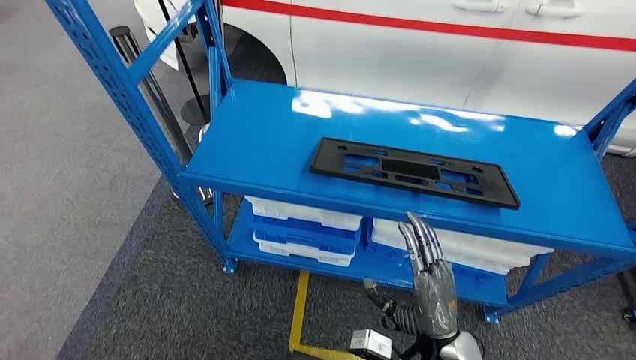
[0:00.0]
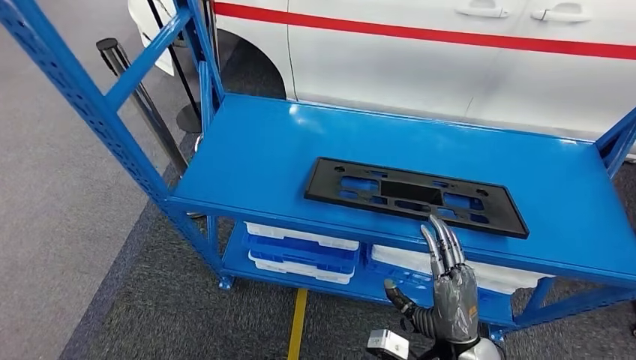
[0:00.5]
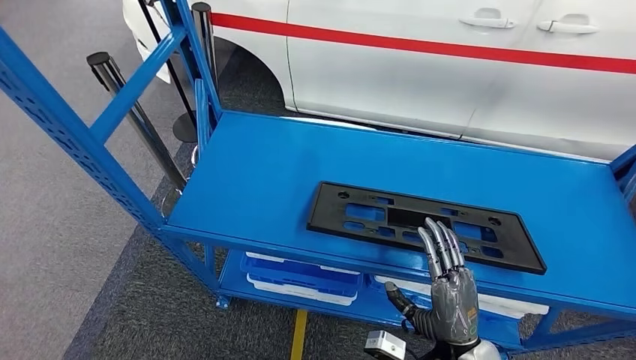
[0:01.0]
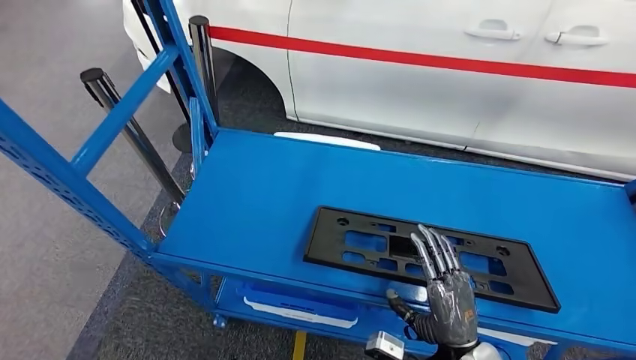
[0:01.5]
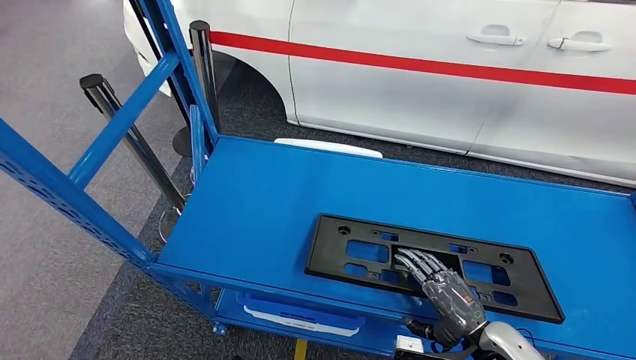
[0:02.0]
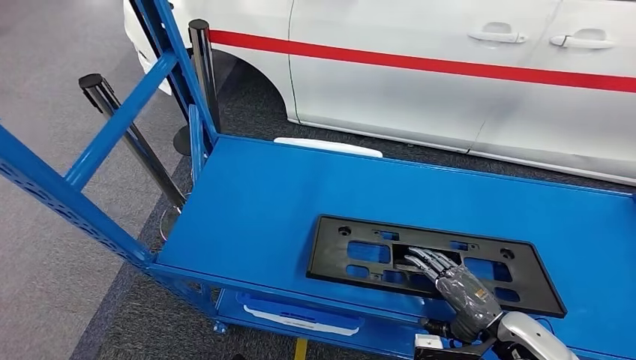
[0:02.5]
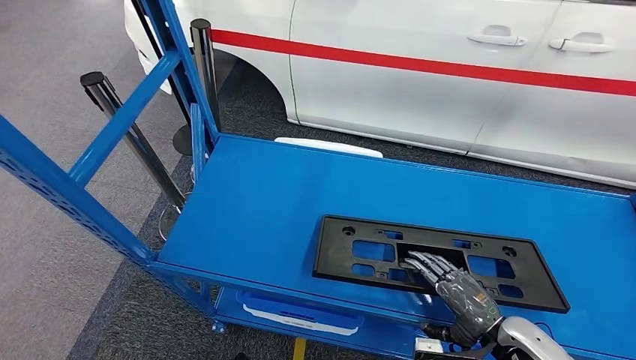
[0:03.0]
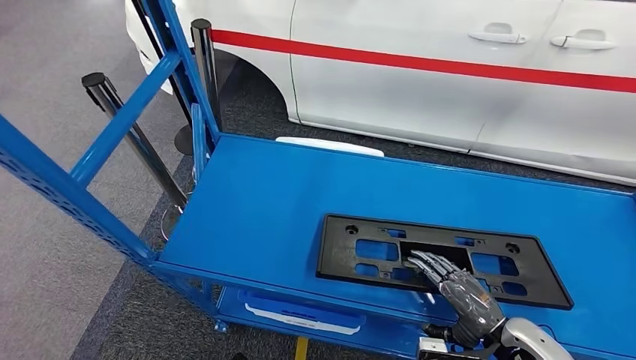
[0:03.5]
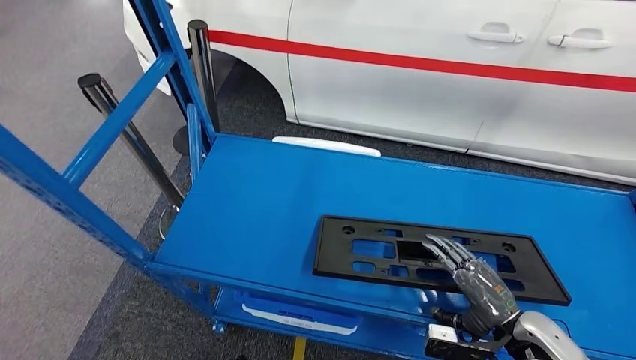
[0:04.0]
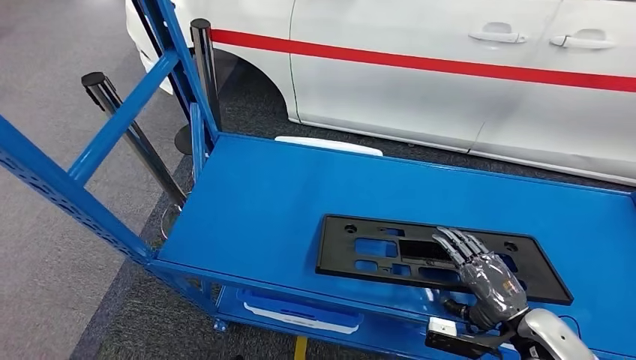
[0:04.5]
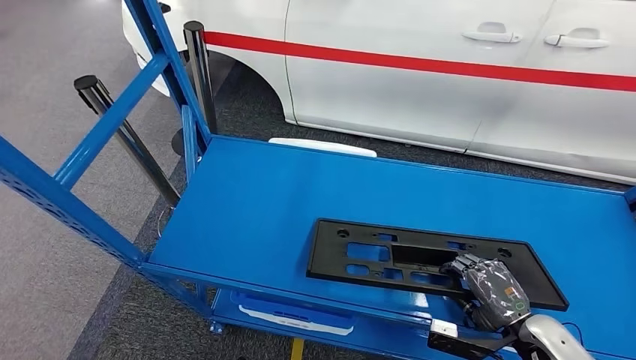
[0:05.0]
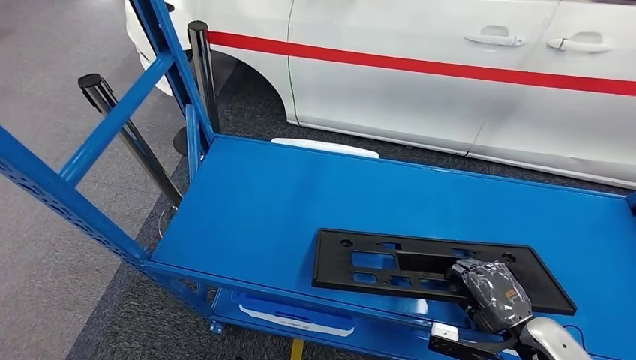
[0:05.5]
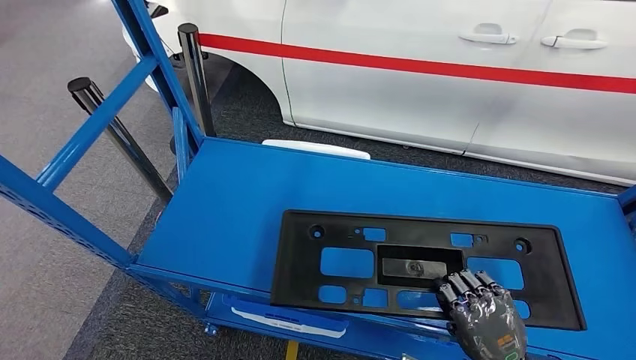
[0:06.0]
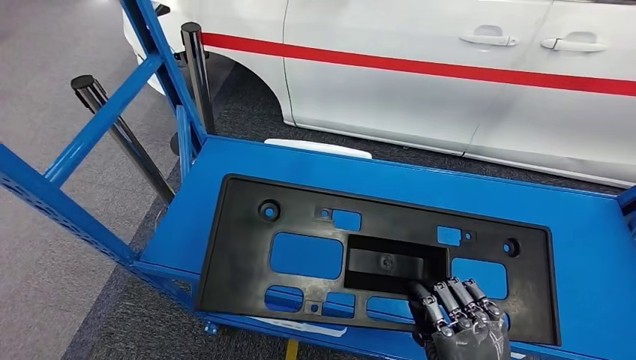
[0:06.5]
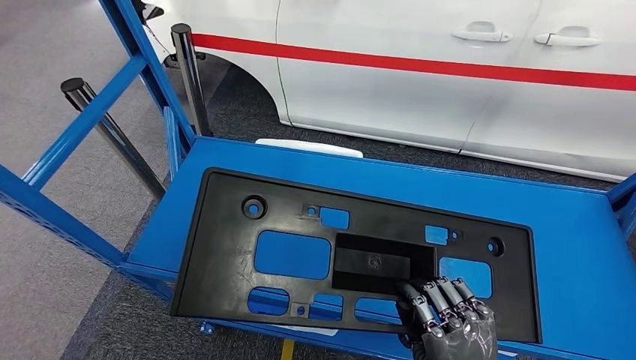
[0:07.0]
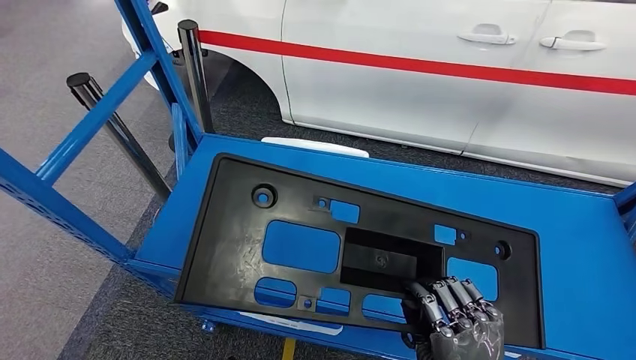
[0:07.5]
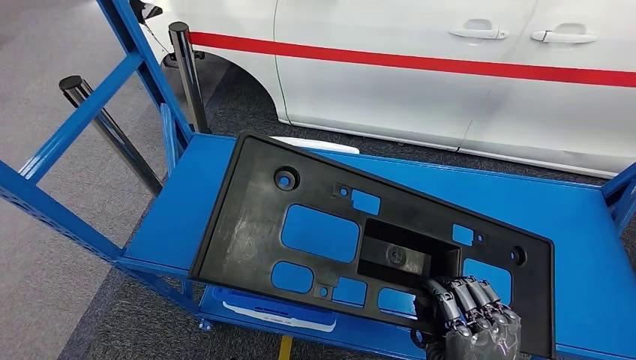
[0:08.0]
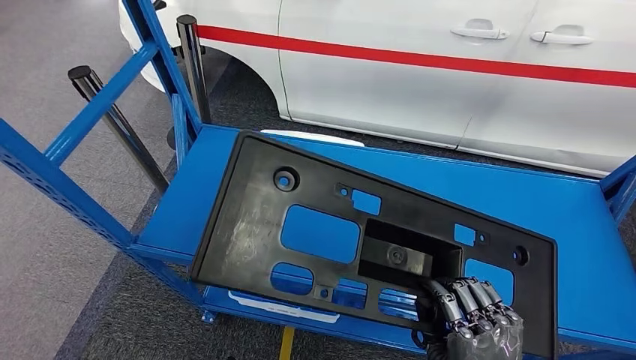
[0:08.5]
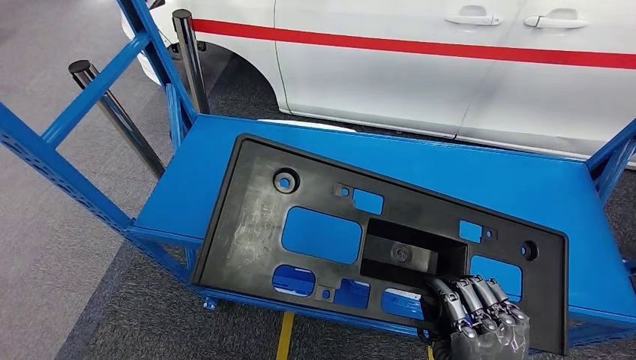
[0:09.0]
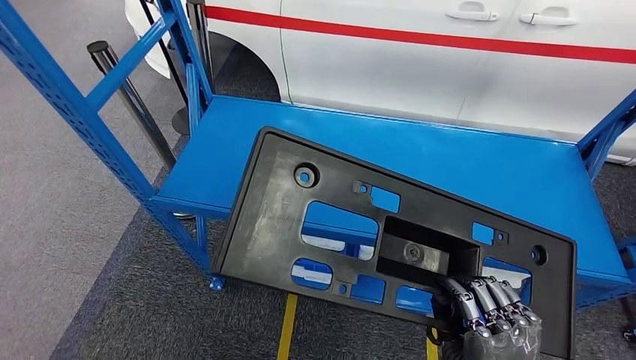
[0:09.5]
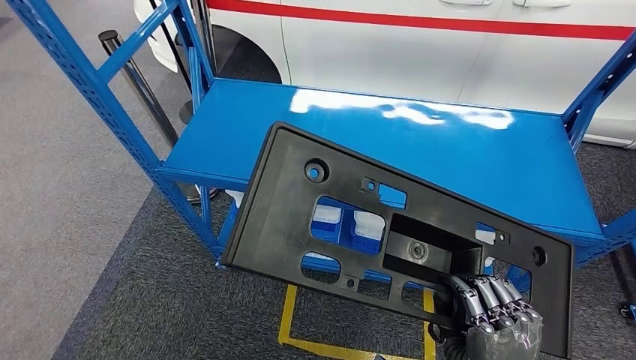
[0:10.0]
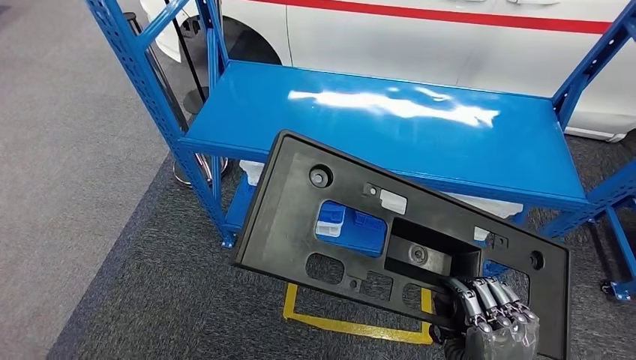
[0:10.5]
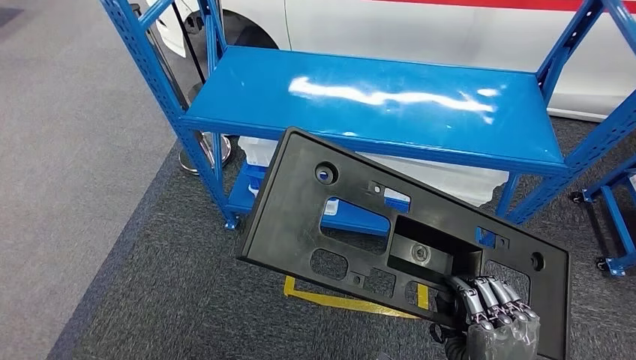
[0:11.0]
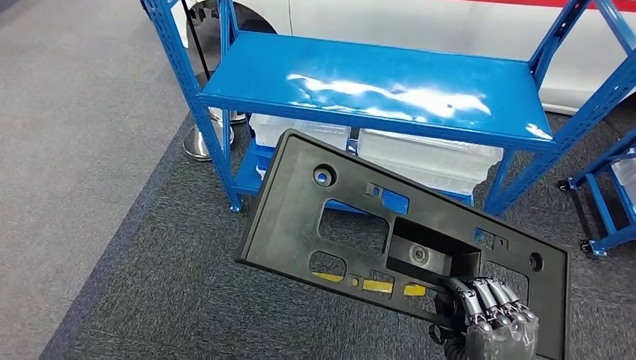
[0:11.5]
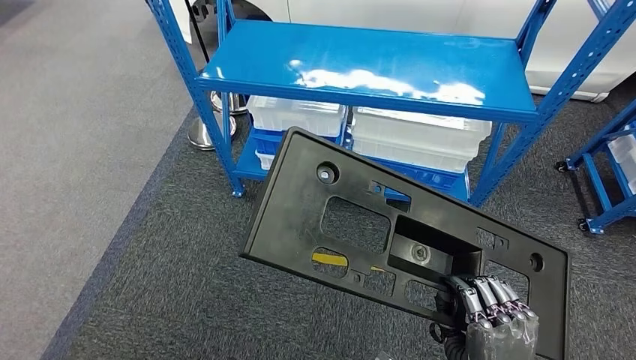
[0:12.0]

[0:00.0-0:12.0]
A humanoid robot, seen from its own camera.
Step, 0:00.0 to 0:09.0: Pick up the large material from the shelf.
0:02.0 to 0:04.0: There are only small adjustments of the hands.

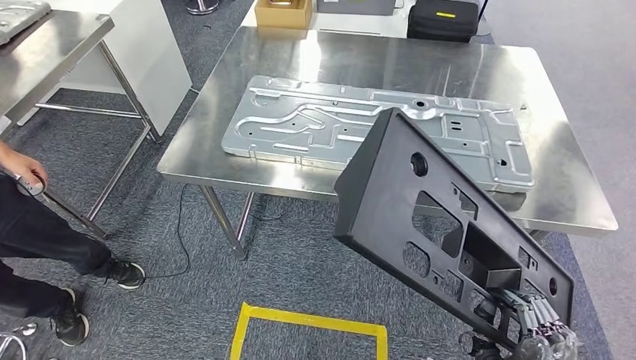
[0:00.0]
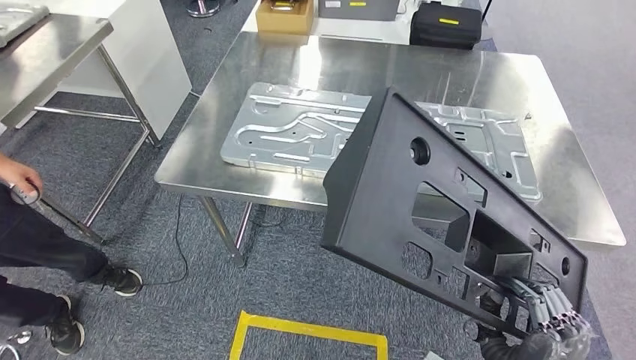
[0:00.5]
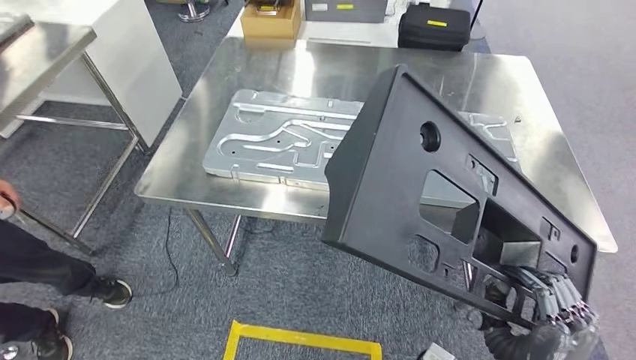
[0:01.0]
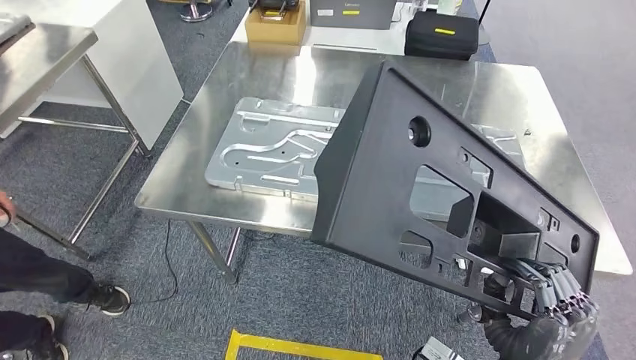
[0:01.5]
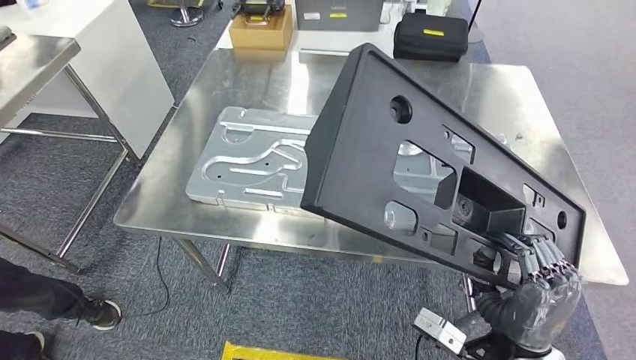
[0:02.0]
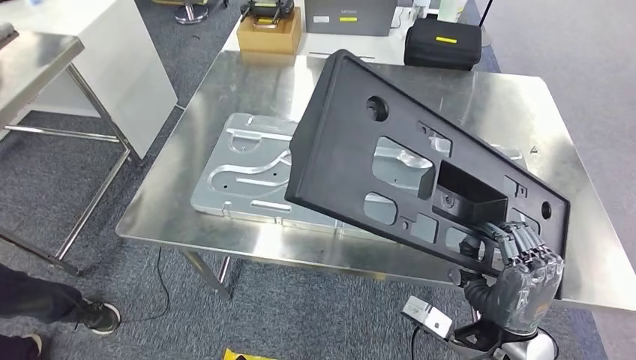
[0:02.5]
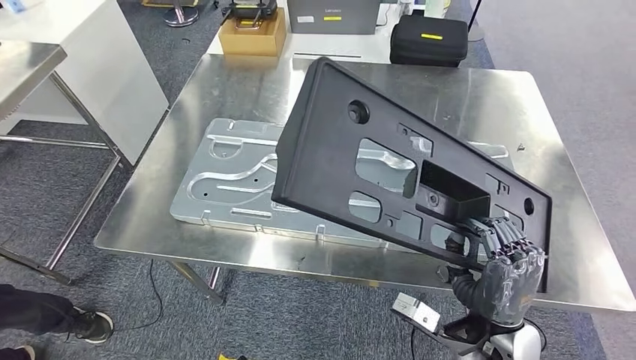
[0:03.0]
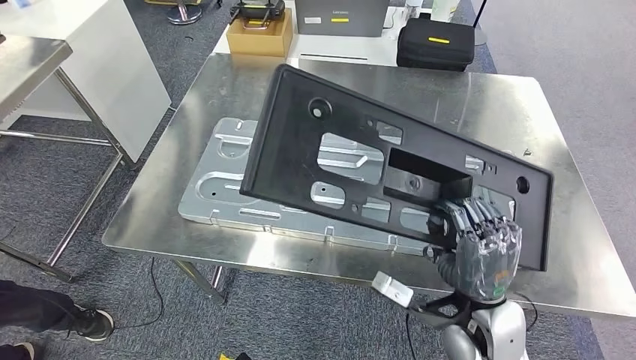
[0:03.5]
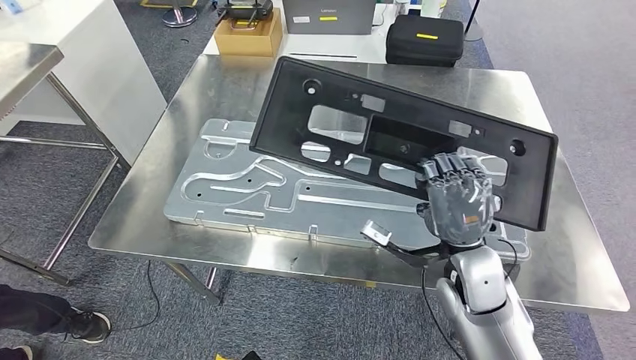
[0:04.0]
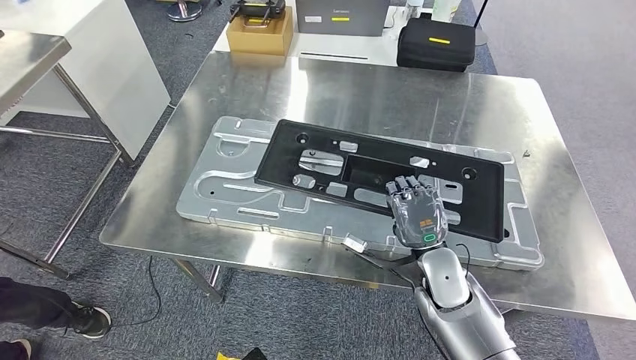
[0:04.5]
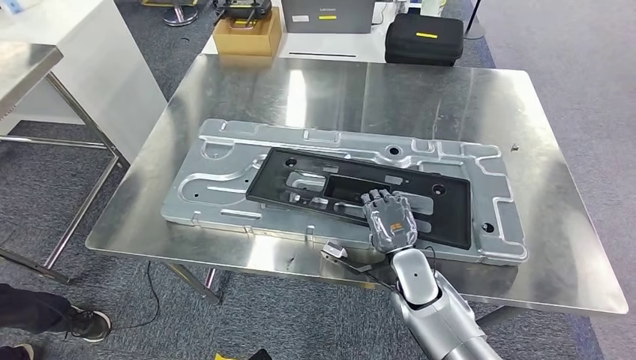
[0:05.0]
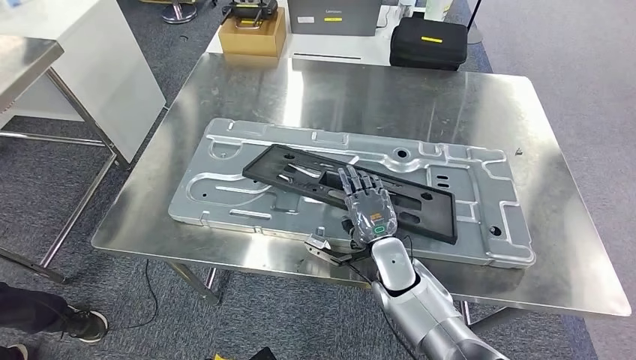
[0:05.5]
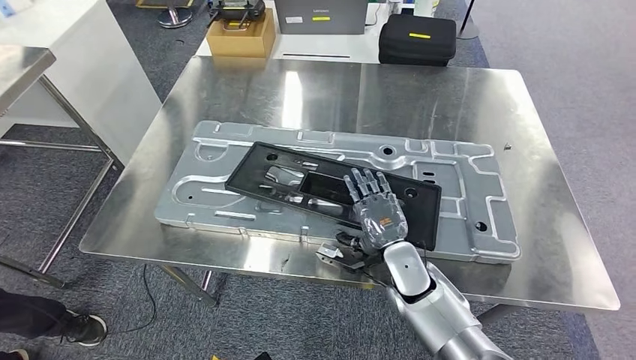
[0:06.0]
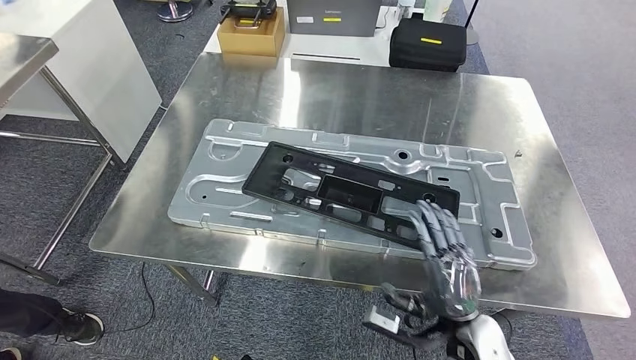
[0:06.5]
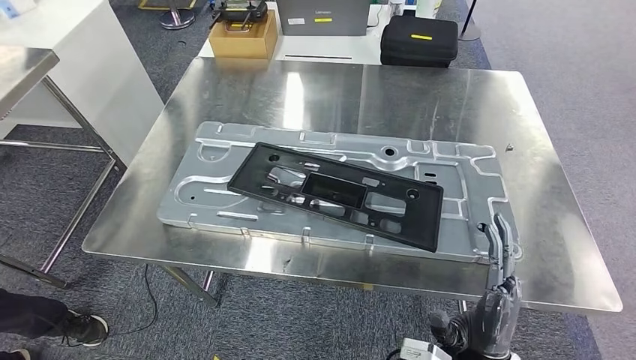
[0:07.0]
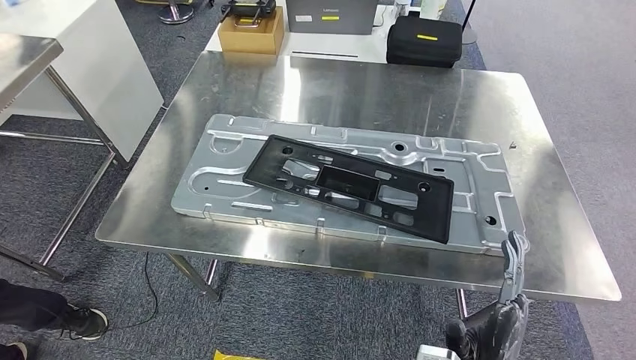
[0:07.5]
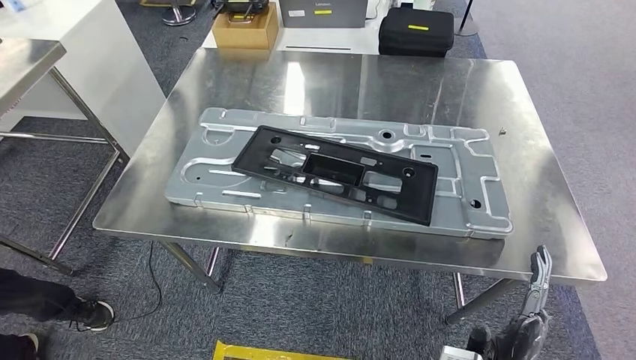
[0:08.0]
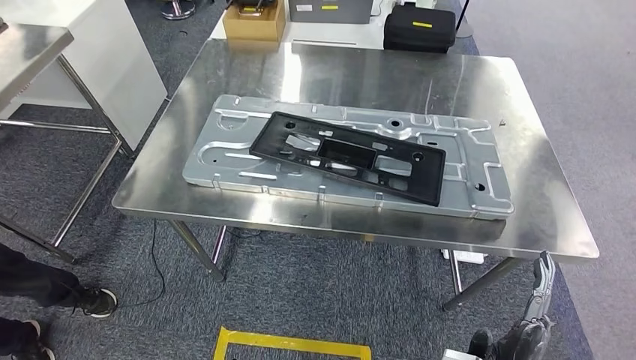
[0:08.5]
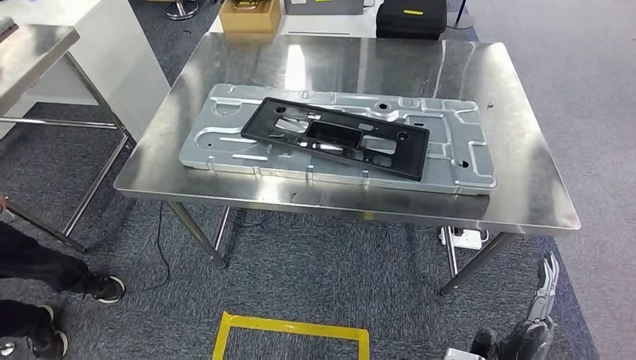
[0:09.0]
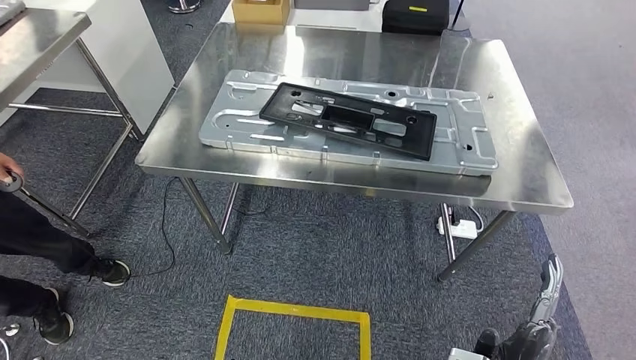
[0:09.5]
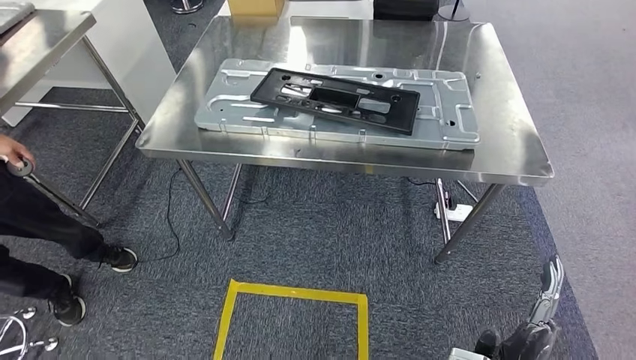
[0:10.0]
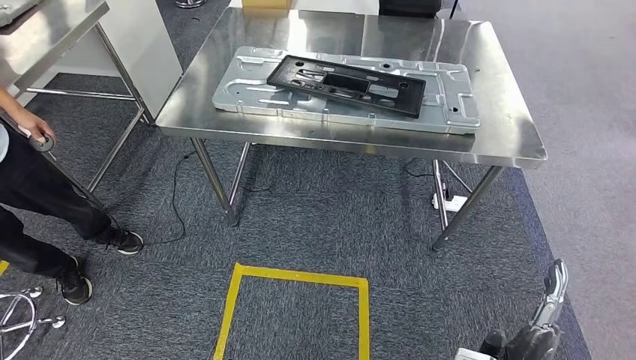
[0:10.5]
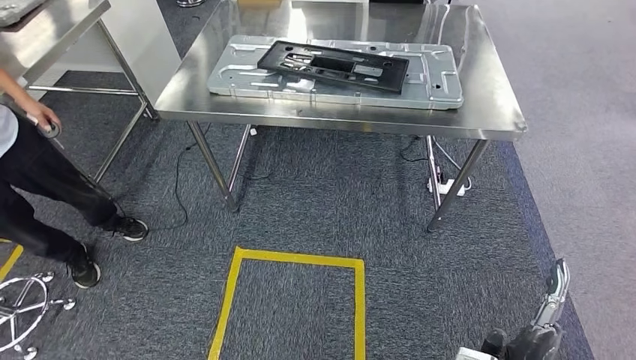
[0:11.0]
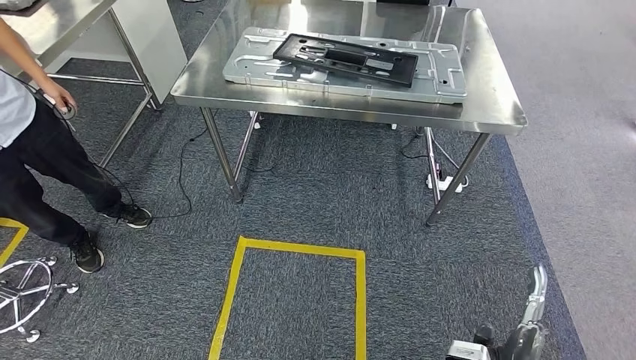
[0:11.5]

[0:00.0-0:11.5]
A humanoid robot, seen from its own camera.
Step, 0:01.5 to 0:10.5: Insert the large material into the corresponding slot on the workbench.
